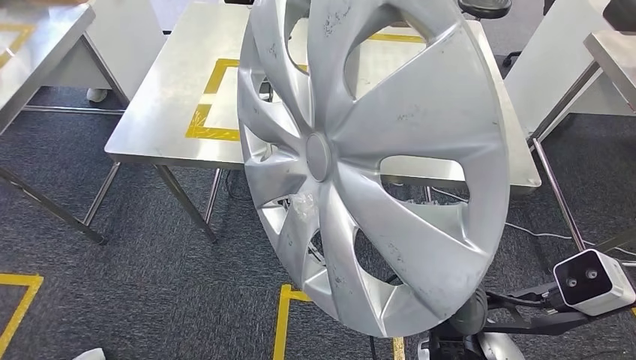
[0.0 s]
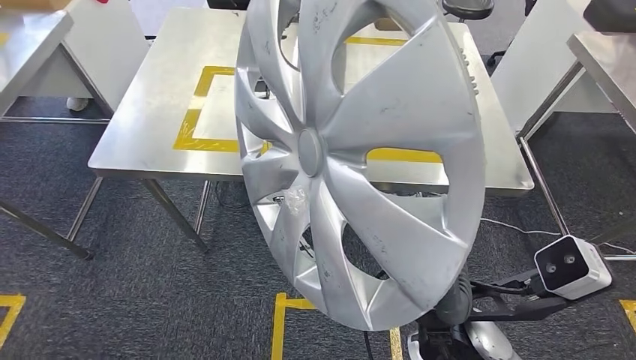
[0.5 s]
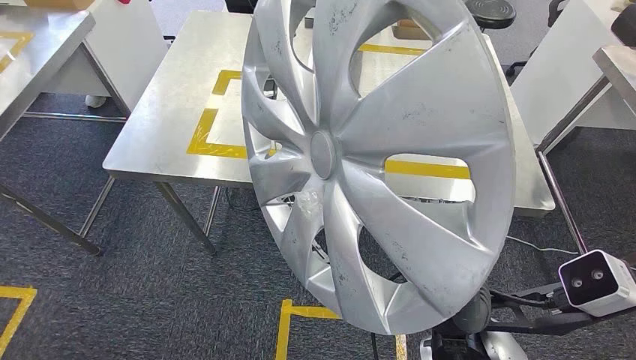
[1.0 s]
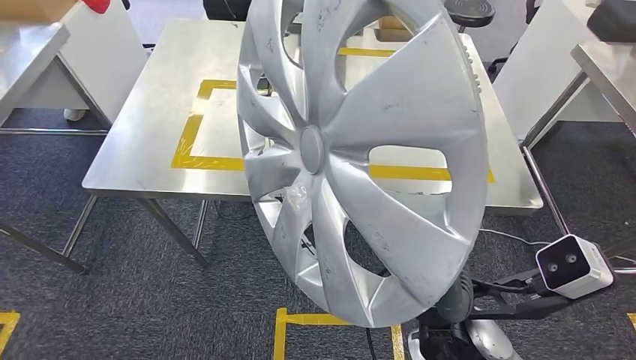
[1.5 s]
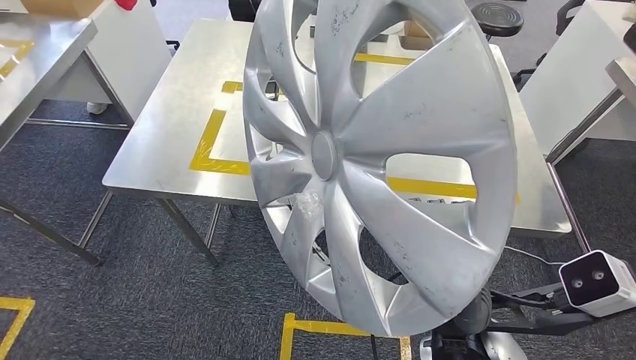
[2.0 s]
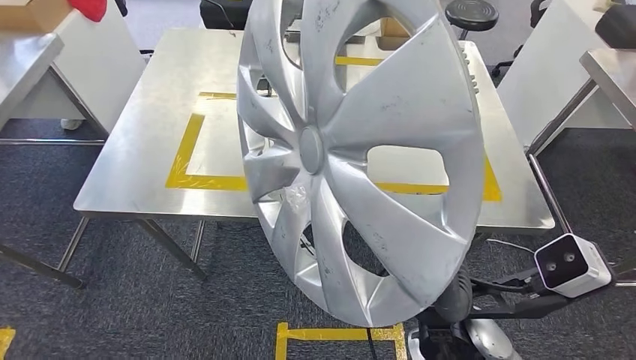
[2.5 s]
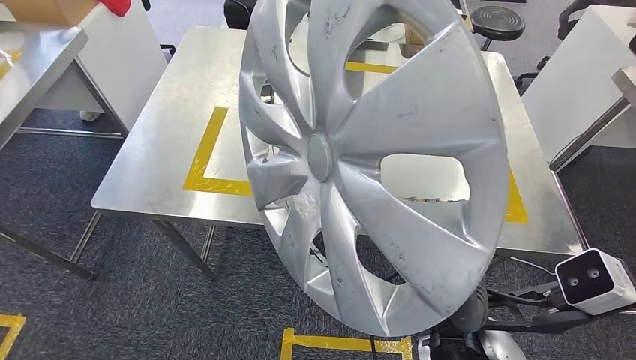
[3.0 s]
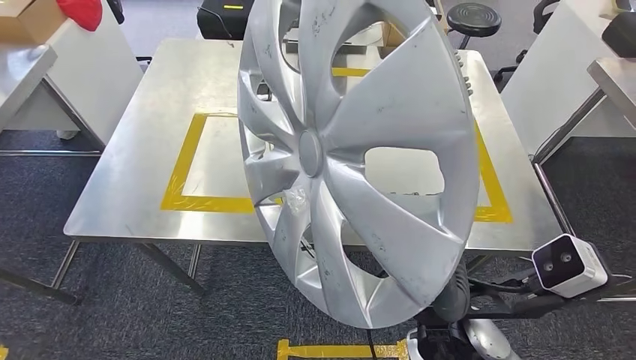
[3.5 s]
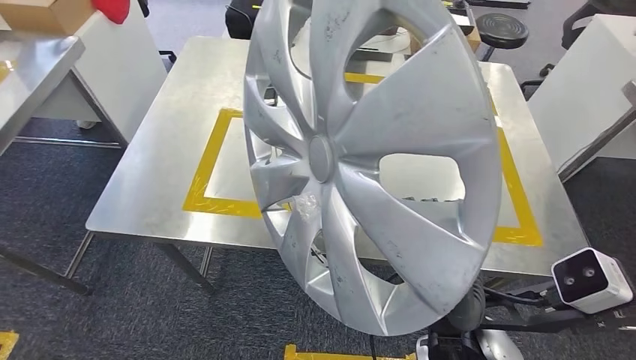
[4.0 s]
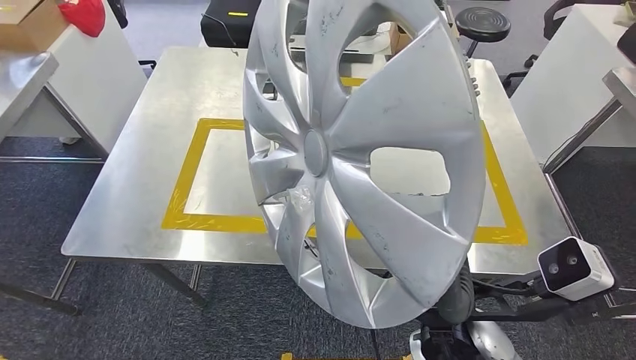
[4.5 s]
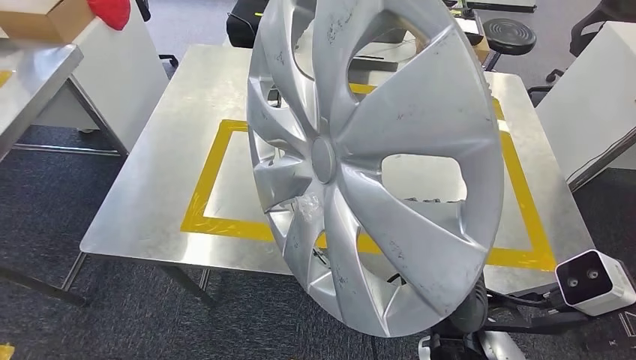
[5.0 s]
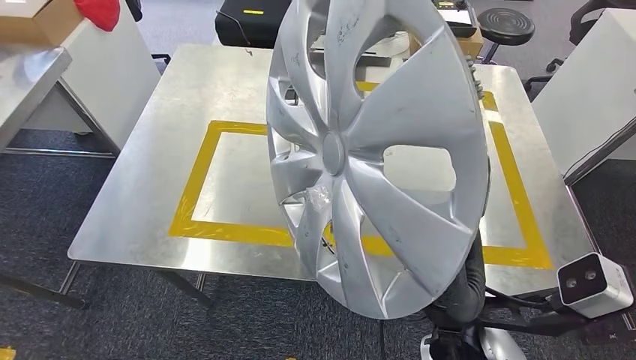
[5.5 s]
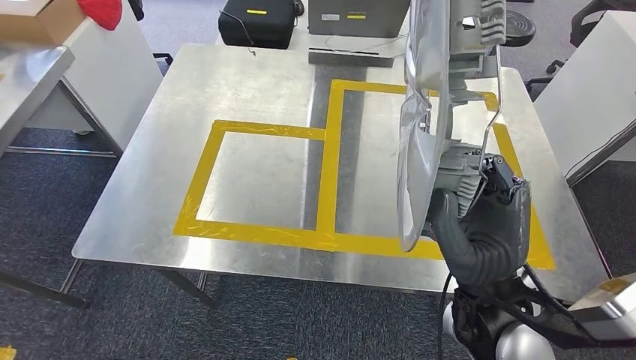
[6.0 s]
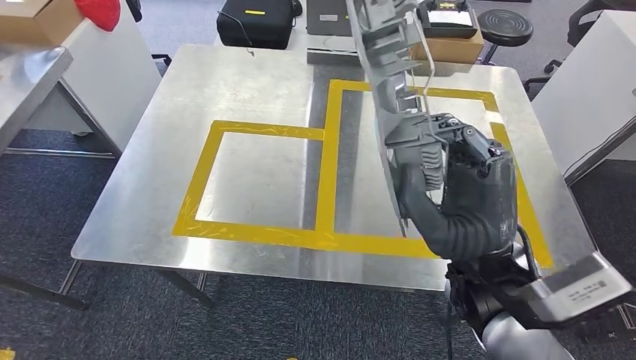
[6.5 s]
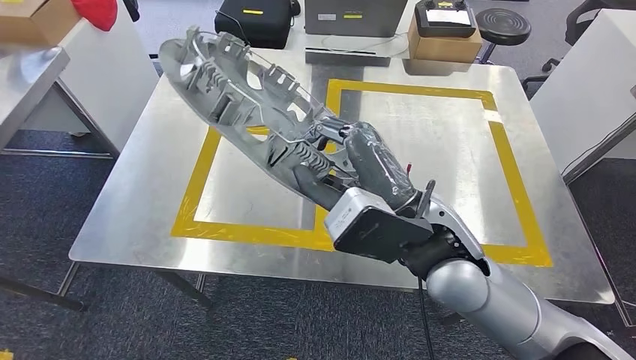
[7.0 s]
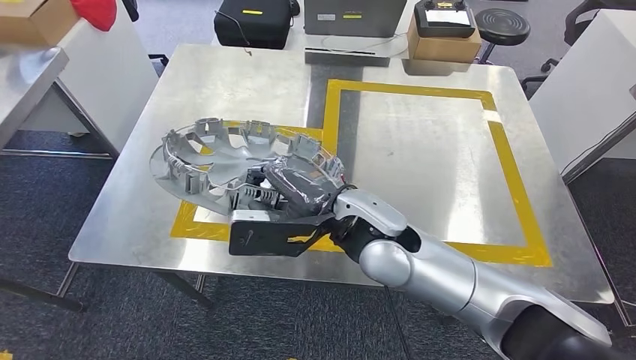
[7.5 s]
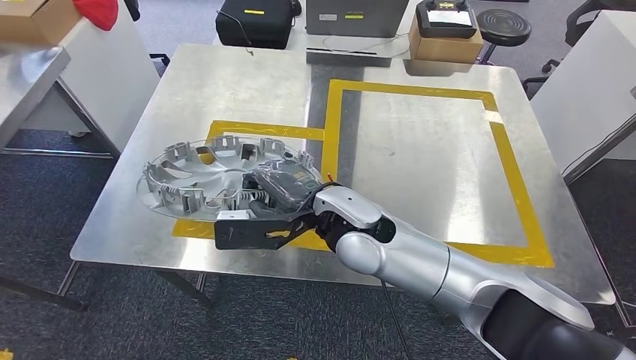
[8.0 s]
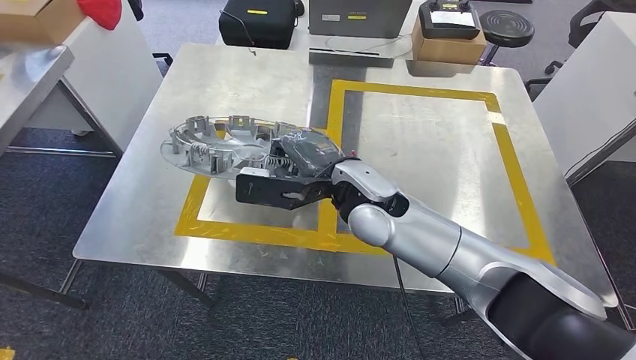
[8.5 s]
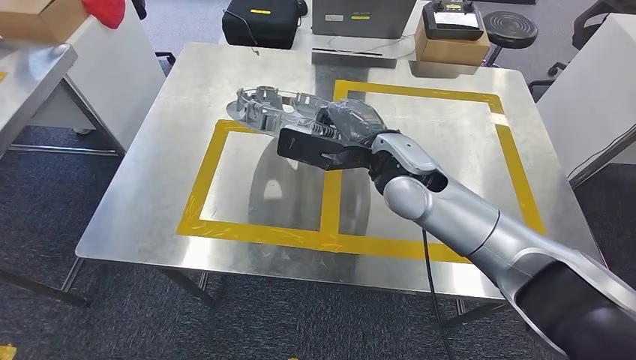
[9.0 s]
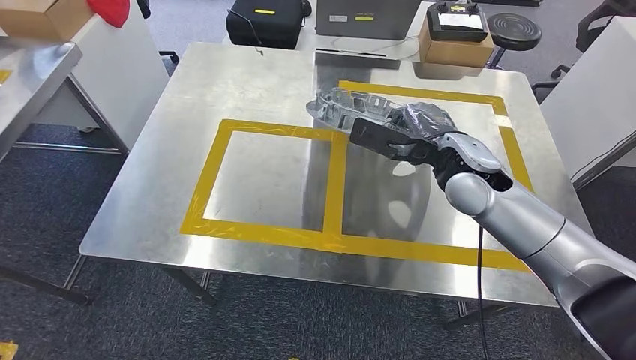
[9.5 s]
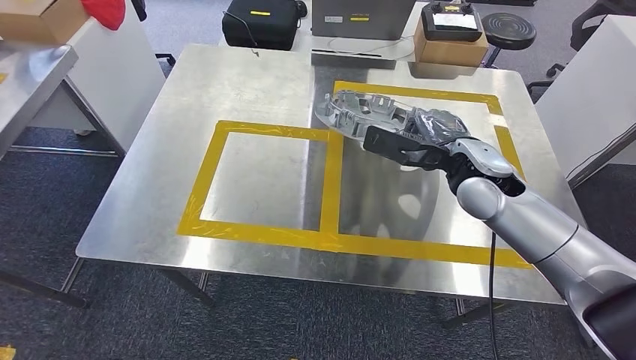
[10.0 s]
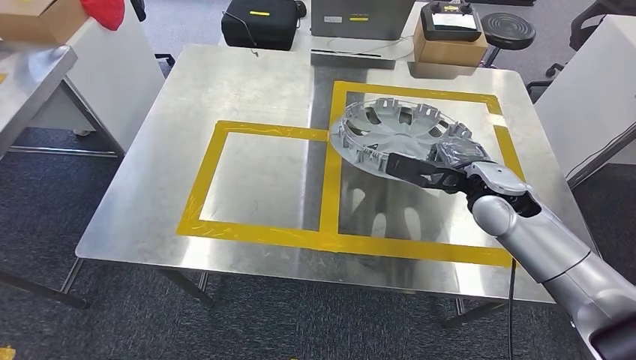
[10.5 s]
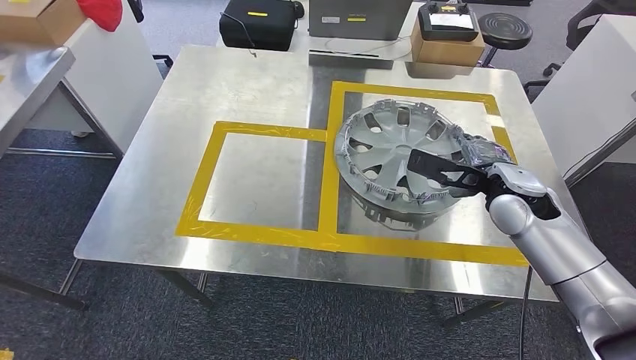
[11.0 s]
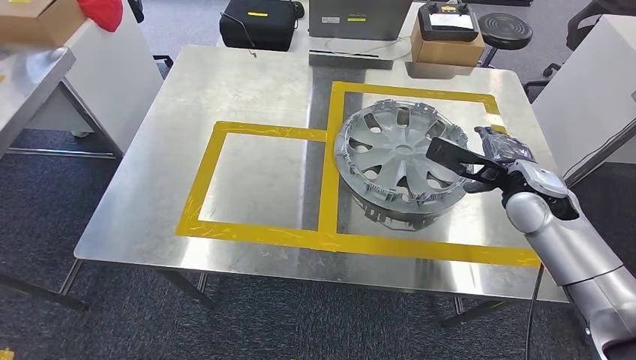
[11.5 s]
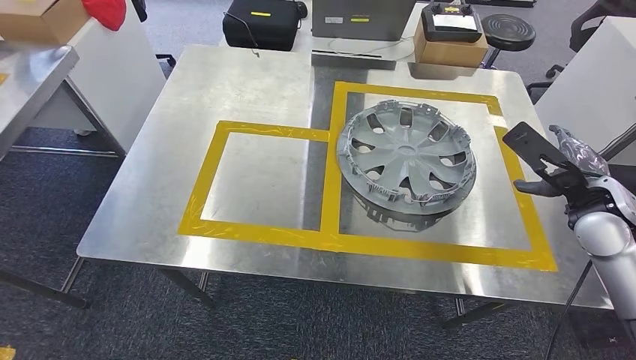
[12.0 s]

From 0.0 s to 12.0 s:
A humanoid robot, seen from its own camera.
Step, from 0.0 s to 2.5 s: Move the small parts to the workbench.
Step, from 3.0 s to 12.0 s: Insert the small parts into the corresponding holes on the workbench.
From 10.0 s to 12.0 s: The right hand moves to the right and backward, some 20 cm.

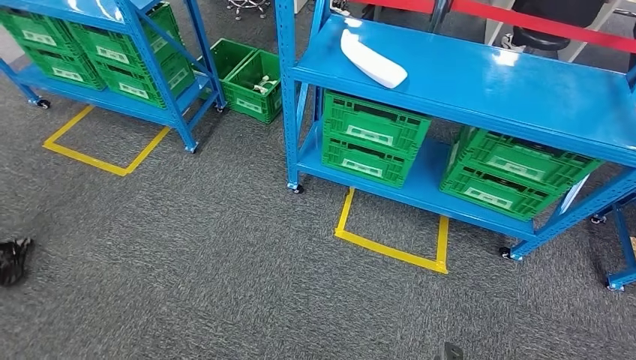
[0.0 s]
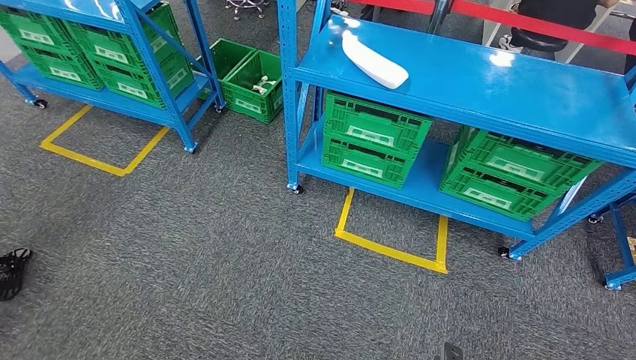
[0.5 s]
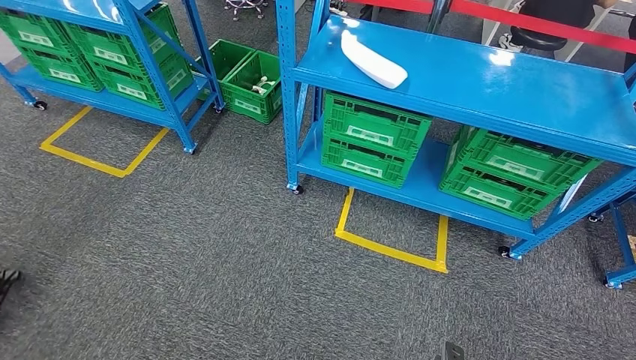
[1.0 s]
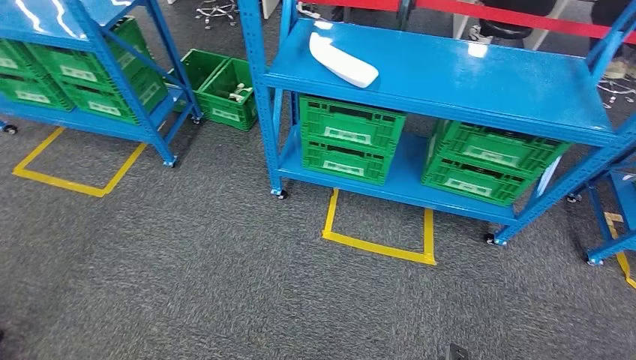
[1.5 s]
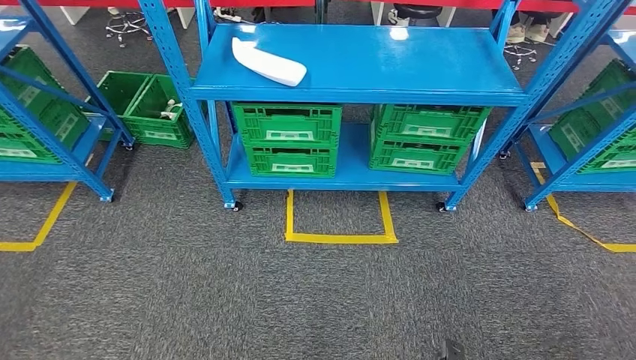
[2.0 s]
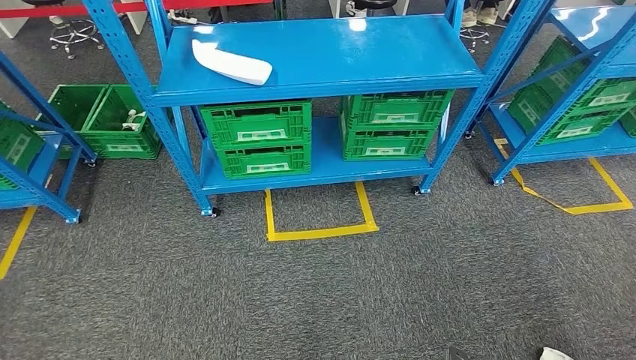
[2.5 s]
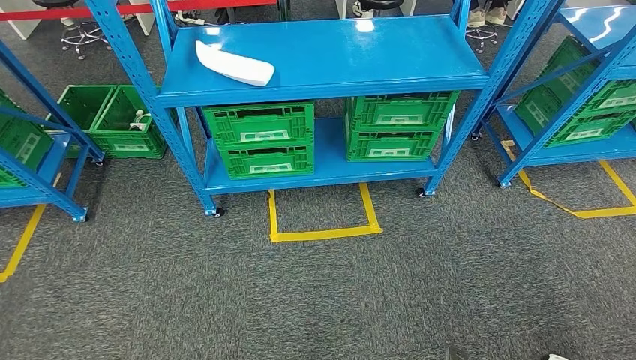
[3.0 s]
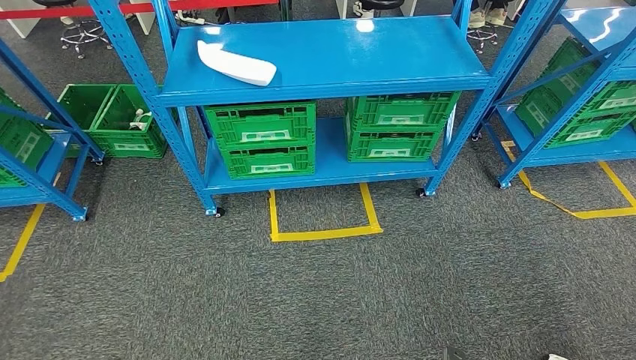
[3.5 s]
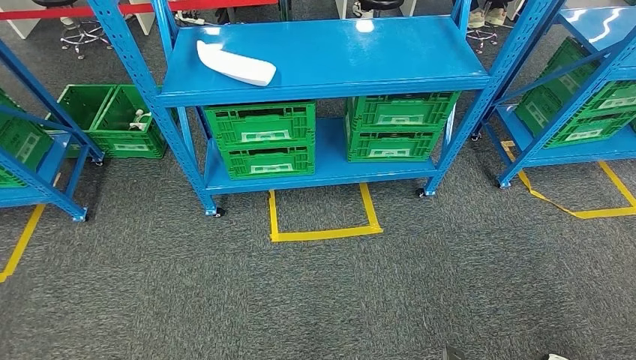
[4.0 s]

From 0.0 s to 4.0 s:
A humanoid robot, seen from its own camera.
Step, from 0.0 s to 3.5 s: Move to the initial position of the workbench.

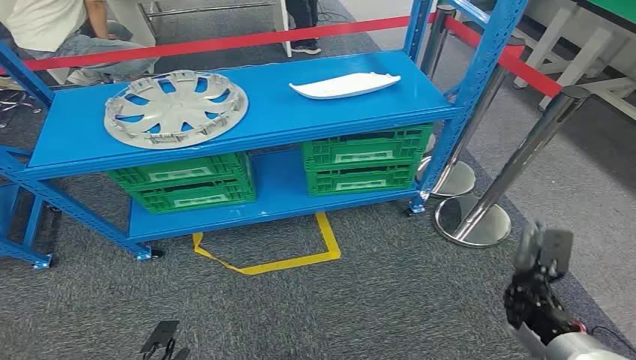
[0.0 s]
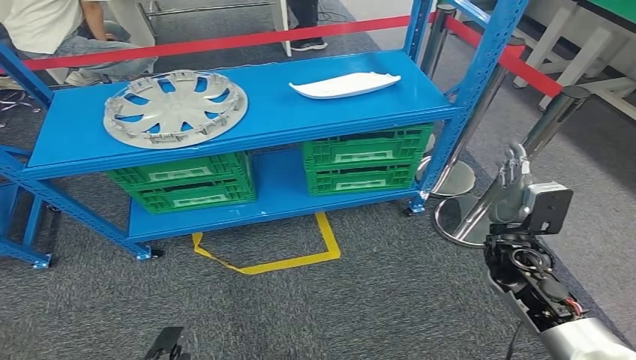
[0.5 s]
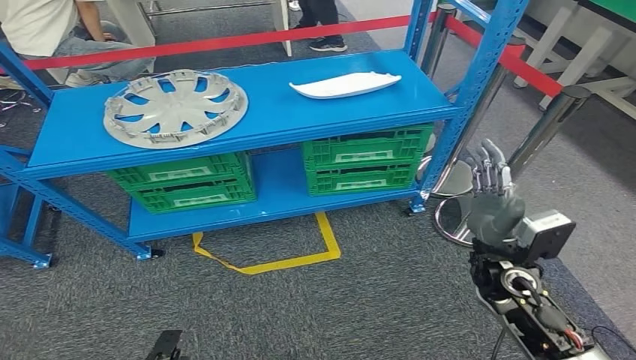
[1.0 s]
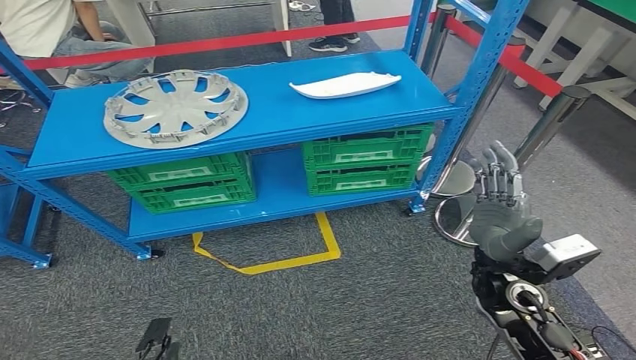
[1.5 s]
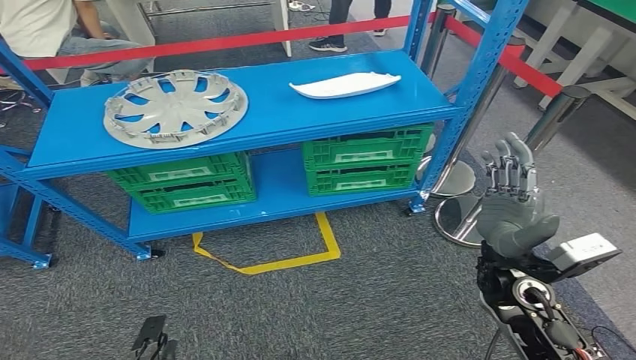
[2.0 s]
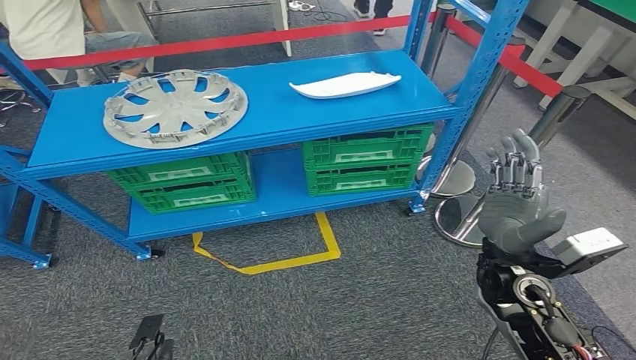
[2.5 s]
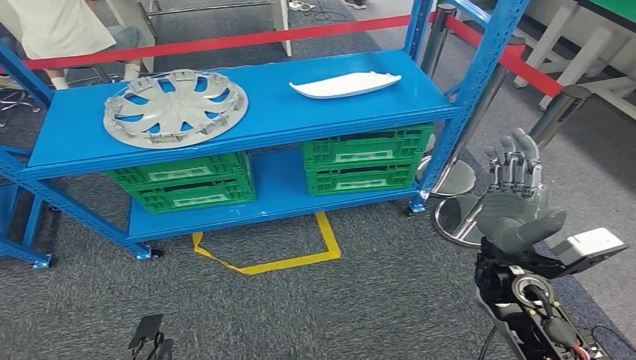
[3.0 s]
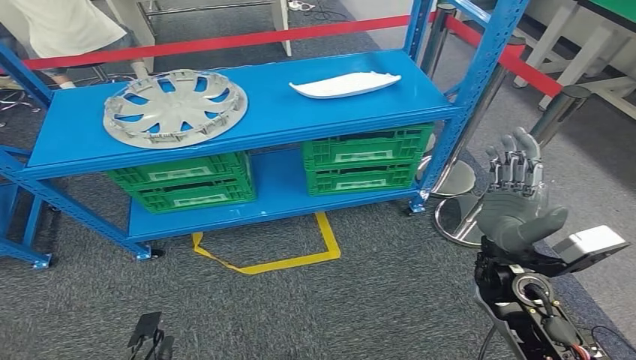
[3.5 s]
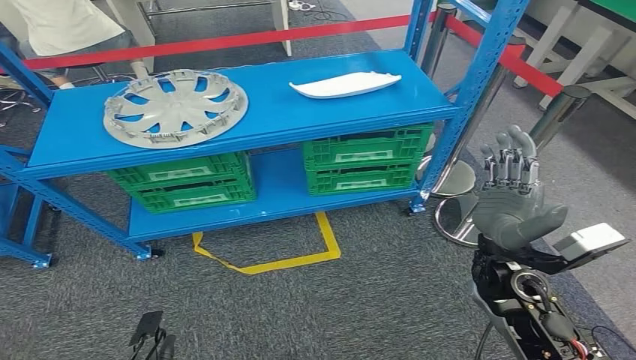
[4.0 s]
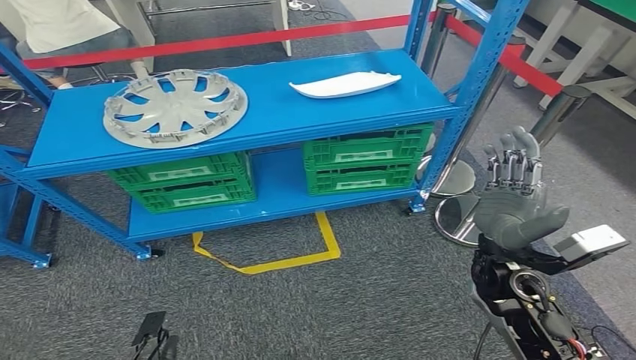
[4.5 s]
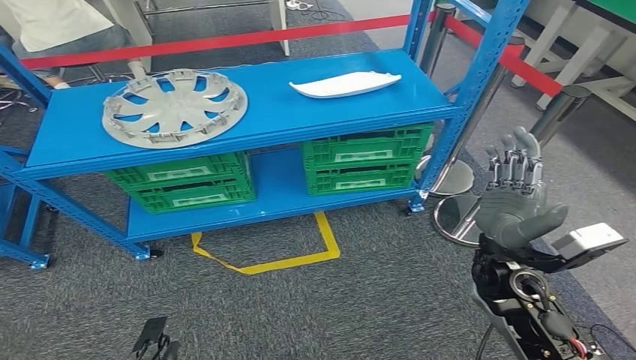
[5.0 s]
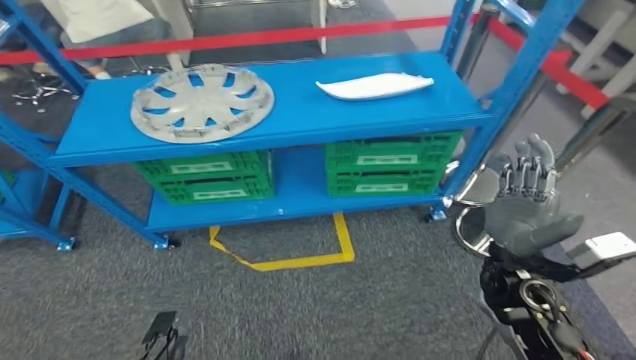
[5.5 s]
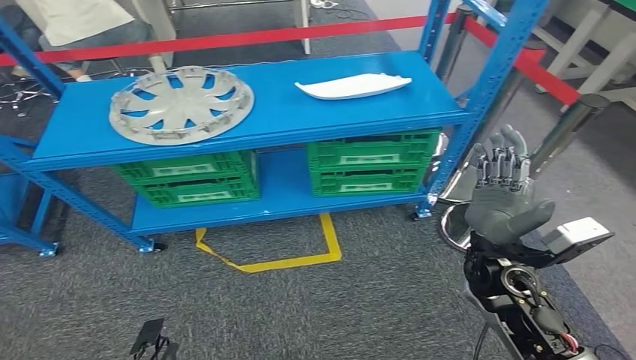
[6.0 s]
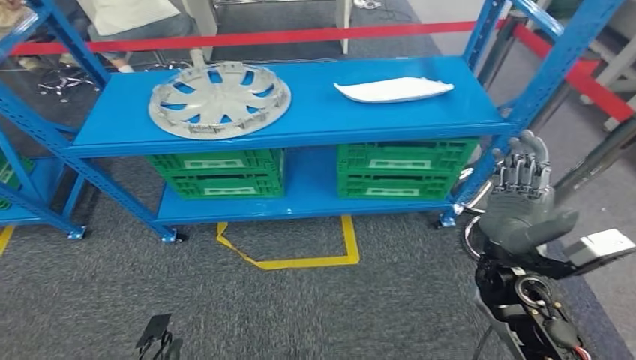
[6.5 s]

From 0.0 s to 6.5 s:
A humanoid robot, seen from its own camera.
From 2.0 s to 4.5 s: The hands stay close to where they were, moving slightly.
